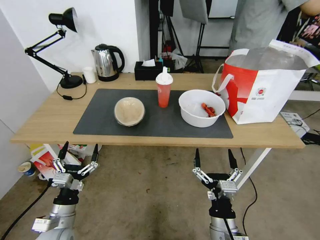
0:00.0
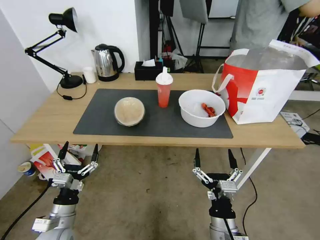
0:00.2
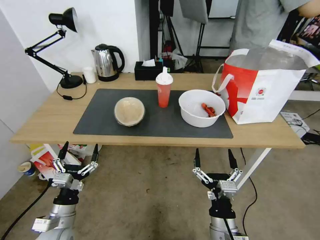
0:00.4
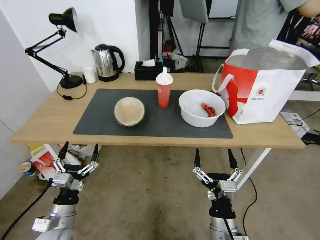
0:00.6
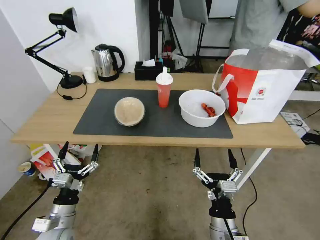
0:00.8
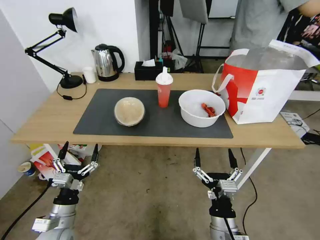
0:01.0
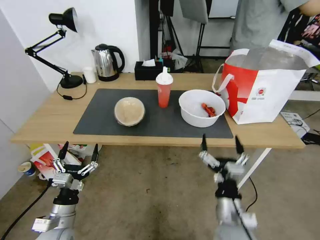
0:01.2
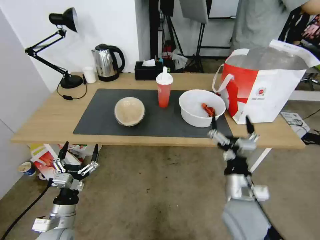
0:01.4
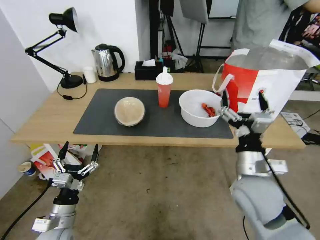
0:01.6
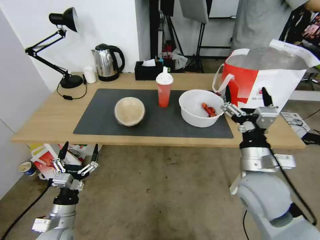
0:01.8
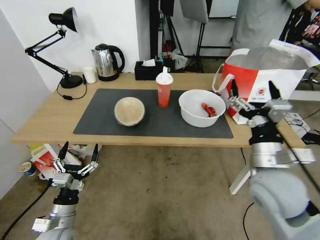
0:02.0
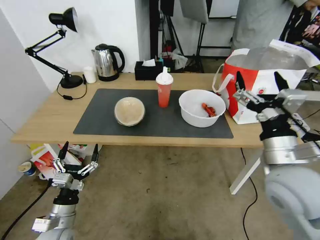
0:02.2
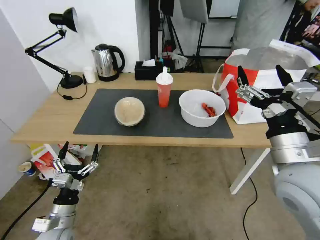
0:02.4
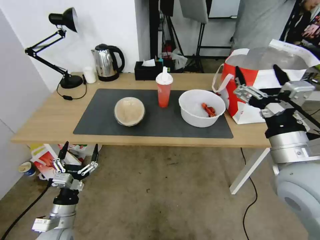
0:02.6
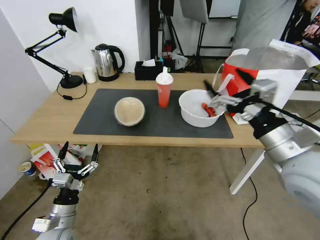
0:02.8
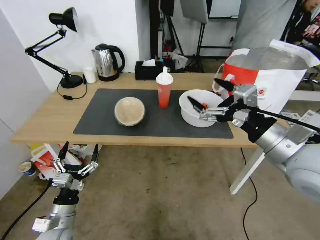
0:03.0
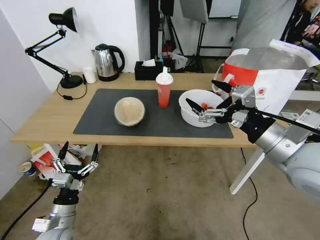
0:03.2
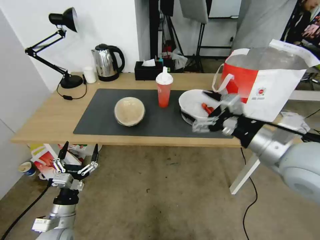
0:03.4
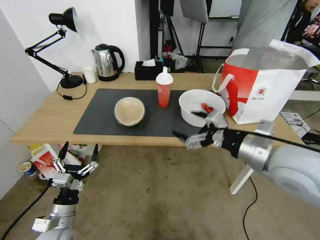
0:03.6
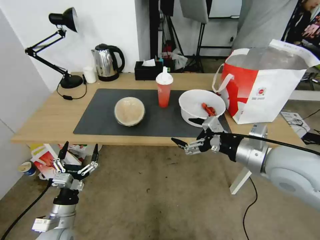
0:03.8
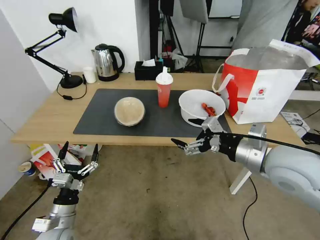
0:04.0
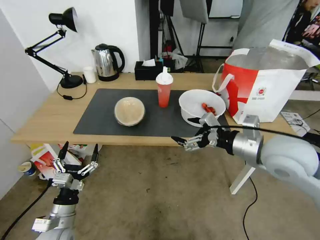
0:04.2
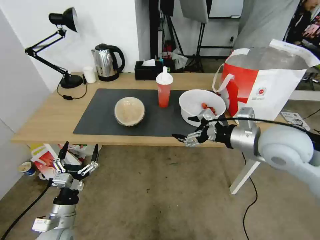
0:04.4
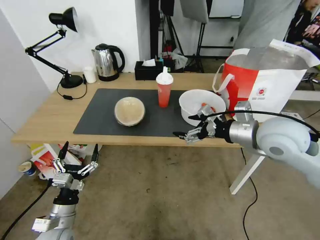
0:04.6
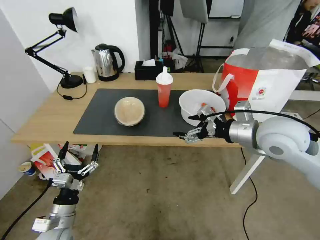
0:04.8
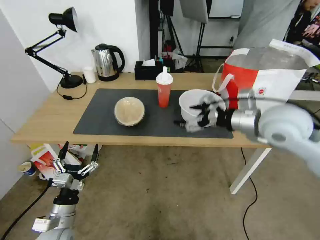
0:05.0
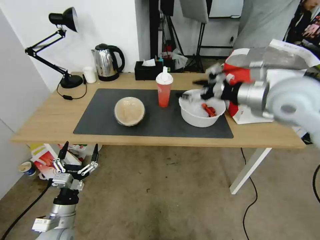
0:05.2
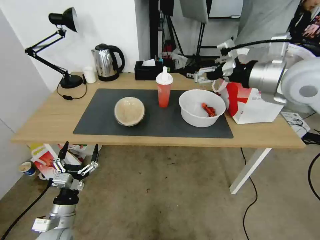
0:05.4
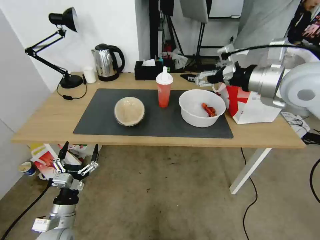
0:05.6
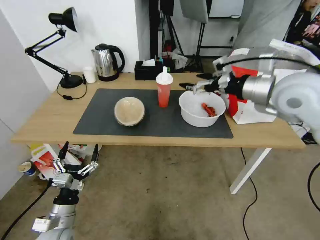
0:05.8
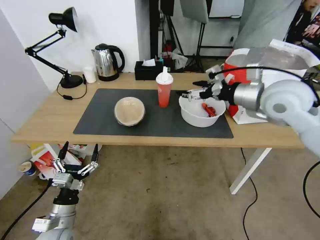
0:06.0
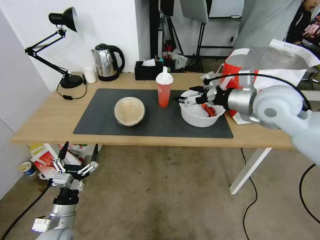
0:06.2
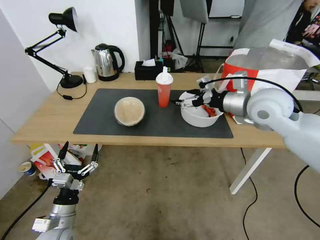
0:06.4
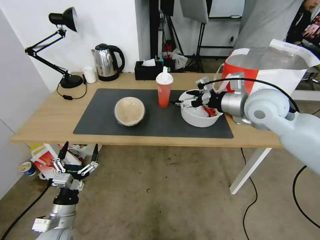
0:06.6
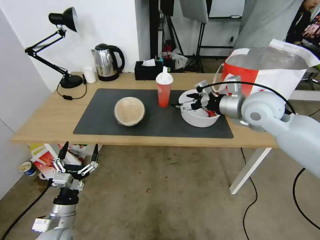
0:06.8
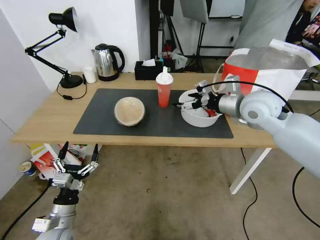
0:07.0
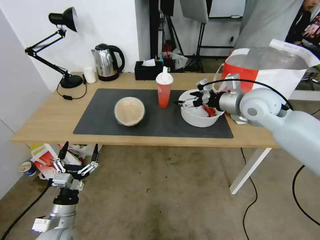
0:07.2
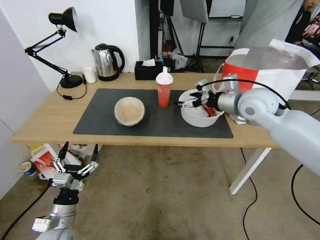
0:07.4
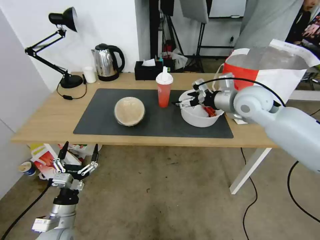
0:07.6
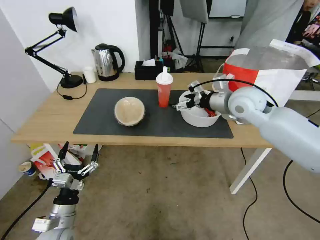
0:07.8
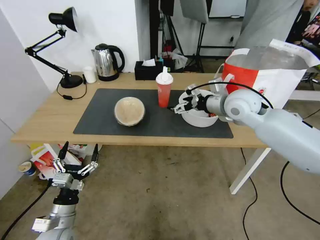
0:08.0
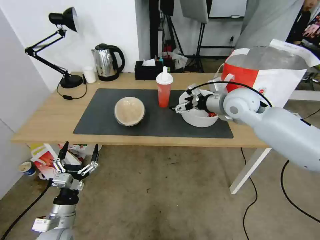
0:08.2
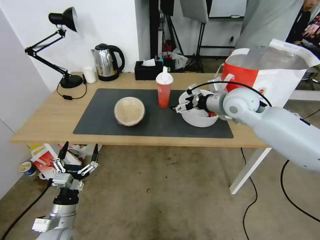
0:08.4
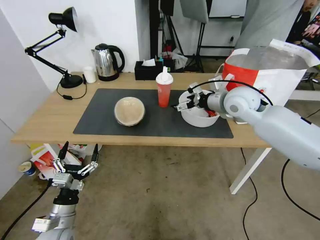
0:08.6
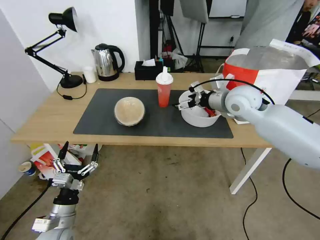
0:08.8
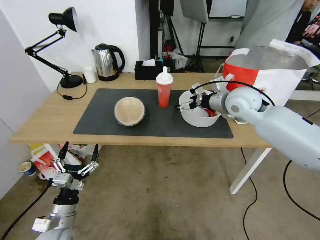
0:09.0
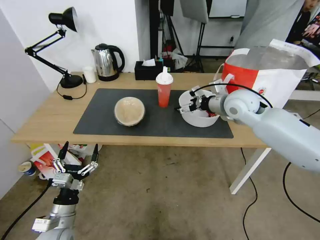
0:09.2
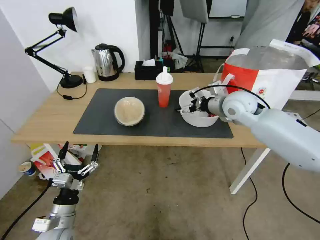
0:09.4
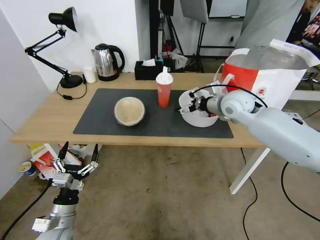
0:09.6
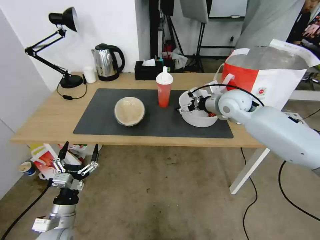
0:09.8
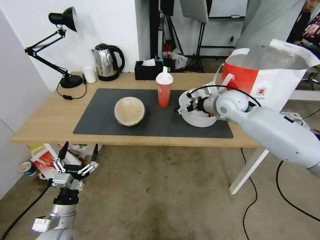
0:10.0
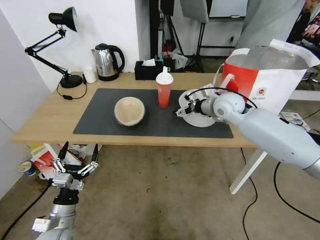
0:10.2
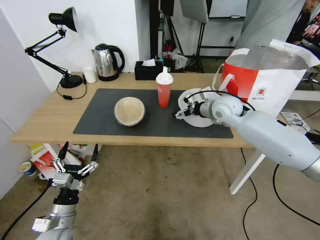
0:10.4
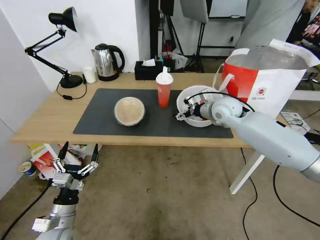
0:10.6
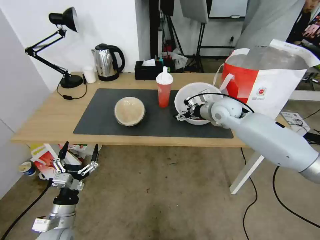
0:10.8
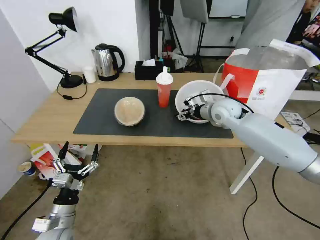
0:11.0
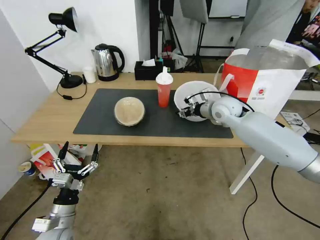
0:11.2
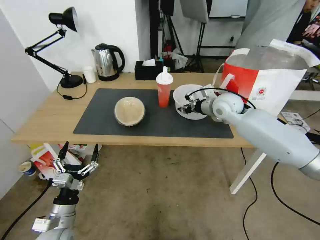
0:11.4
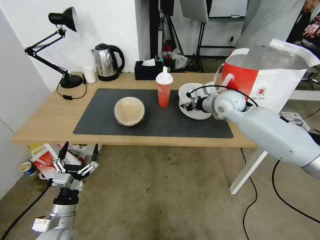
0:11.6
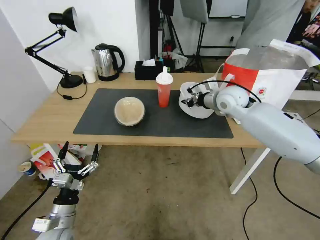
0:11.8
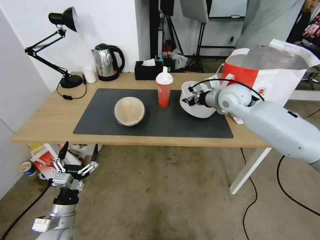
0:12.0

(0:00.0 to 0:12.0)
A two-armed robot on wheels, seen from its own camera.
Task of the whole recording: Pick up the trash from the table and place it into the takeout bag.
0:01.6 - 0:03.0: The right gripper heads upward and to the right, covering roughly 15 cm.
0:03.0 - 0:04.4: The right gripper goes about 5 cm forward.
0:04.4 - 0:06.0: The right gripper moves forward and upward, about 10 cm.
0:06.0 - 0:07.6: The right gripper shifts some 10 cm forward and downward.
0:07.6 - 0:09.0: The grippers stay close to where they were, moving slightly.
0:09.0 - 0:10.4: The right gripper heads downward, covering roughly 5 cm.
0:10.4 - 0:12.0: The right gripper closes up.

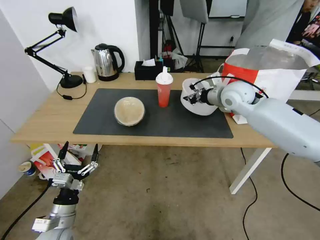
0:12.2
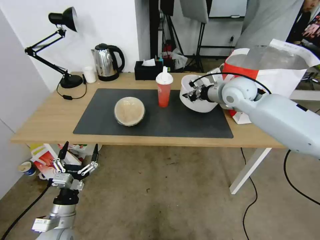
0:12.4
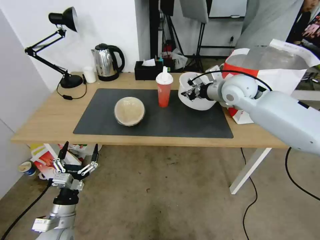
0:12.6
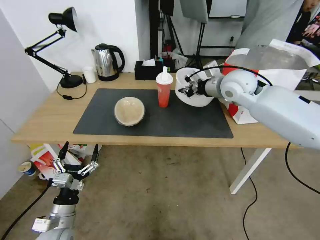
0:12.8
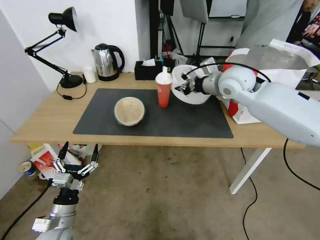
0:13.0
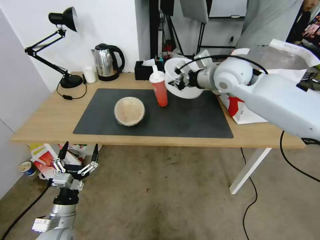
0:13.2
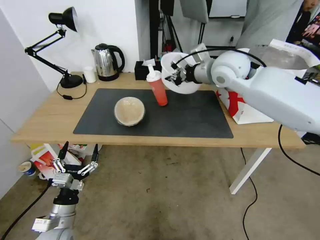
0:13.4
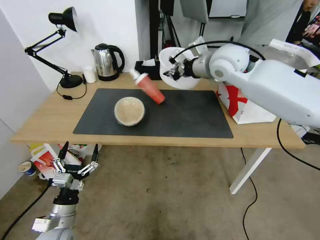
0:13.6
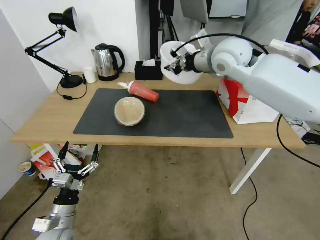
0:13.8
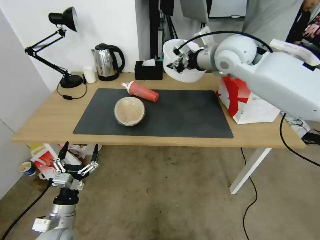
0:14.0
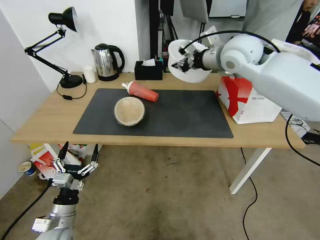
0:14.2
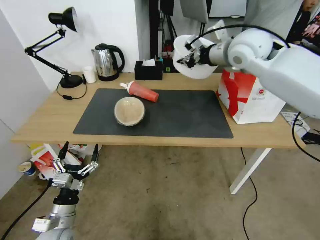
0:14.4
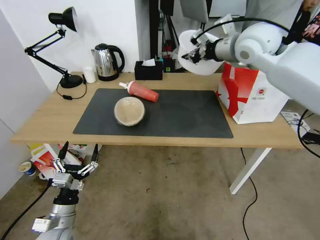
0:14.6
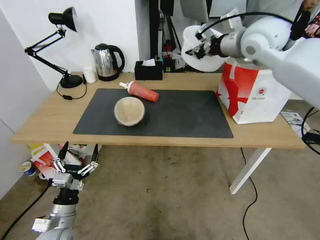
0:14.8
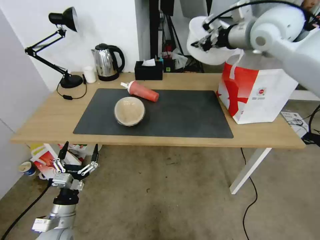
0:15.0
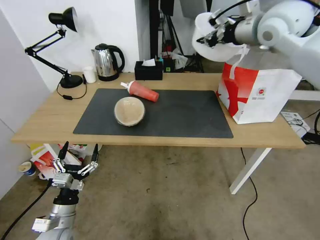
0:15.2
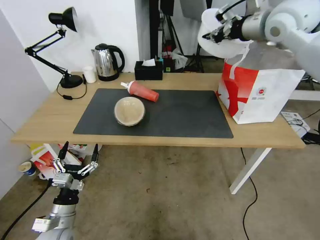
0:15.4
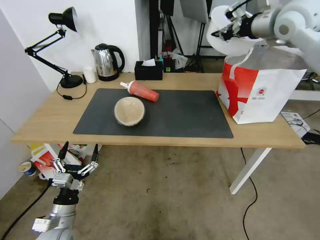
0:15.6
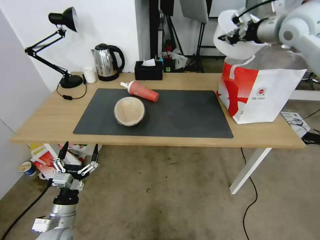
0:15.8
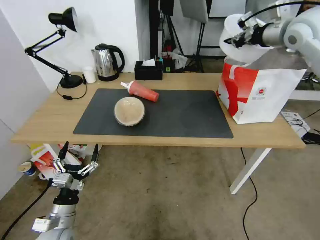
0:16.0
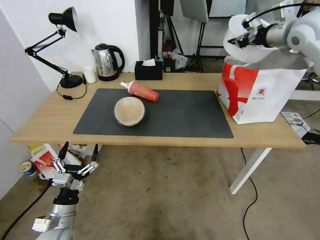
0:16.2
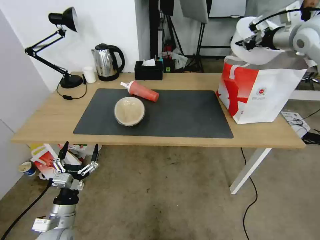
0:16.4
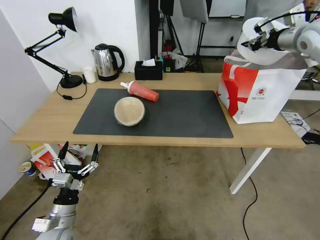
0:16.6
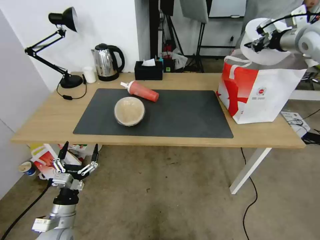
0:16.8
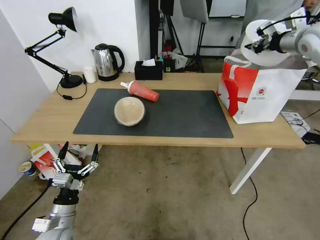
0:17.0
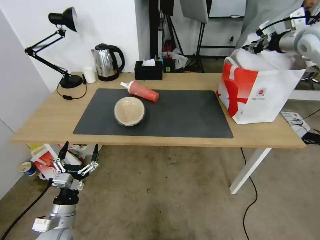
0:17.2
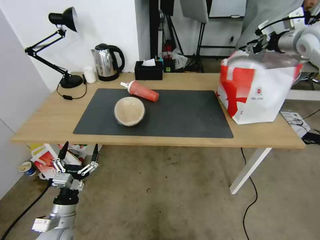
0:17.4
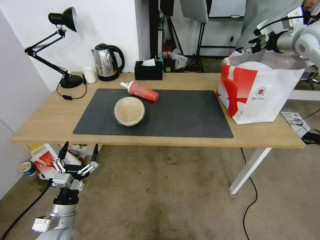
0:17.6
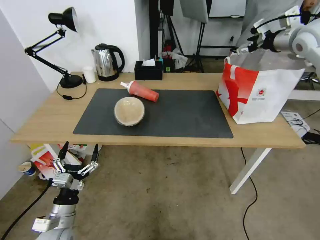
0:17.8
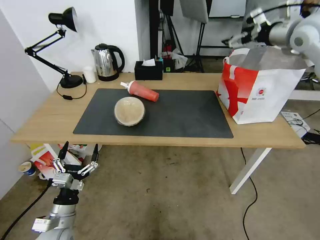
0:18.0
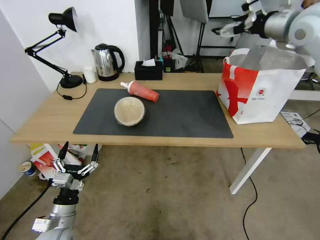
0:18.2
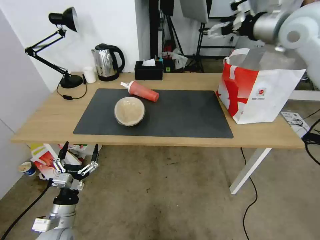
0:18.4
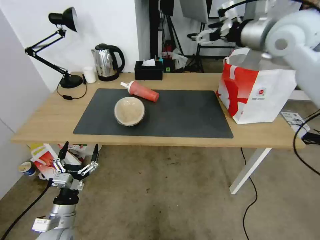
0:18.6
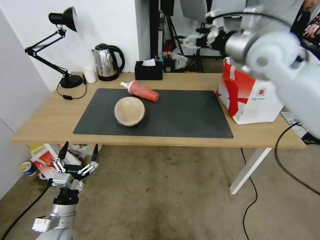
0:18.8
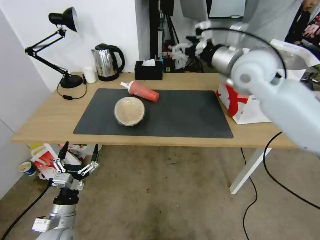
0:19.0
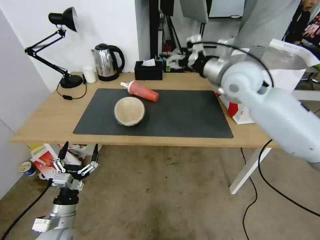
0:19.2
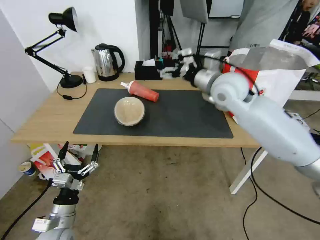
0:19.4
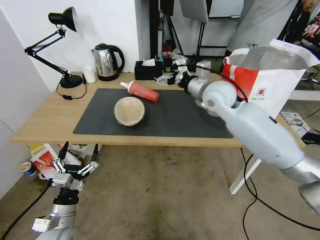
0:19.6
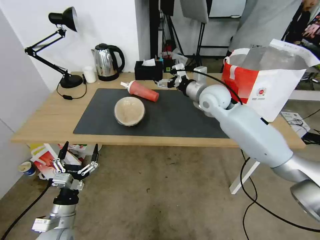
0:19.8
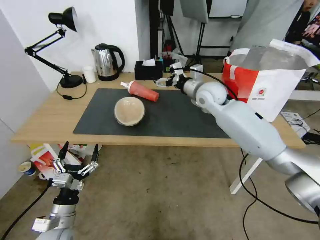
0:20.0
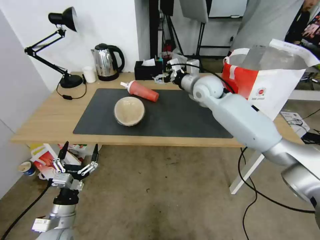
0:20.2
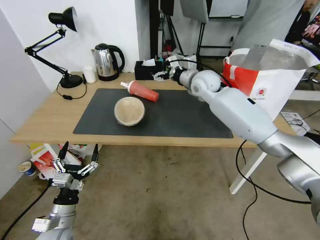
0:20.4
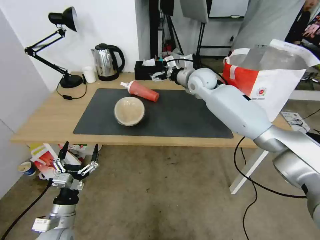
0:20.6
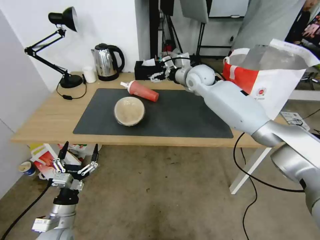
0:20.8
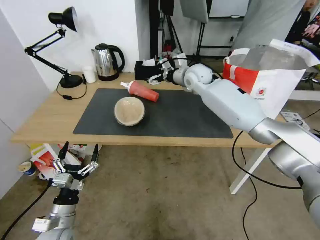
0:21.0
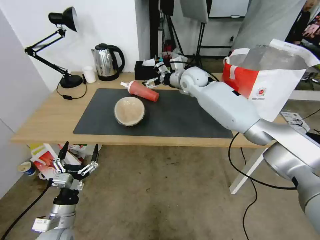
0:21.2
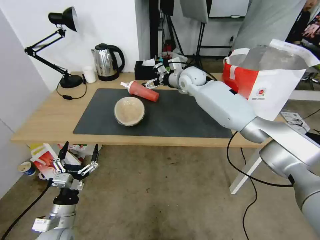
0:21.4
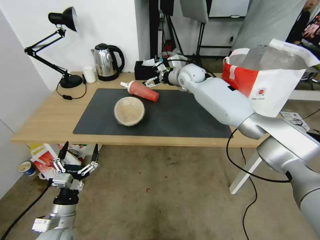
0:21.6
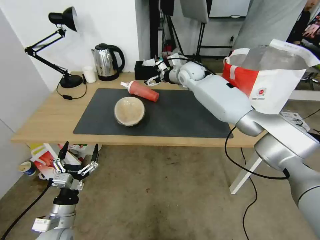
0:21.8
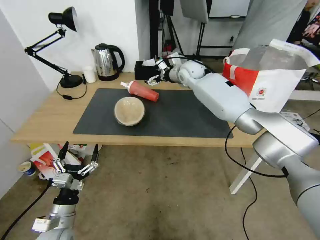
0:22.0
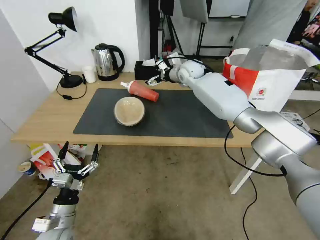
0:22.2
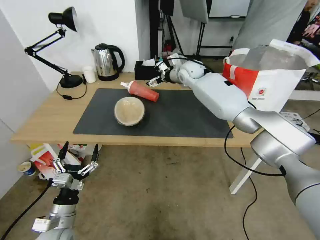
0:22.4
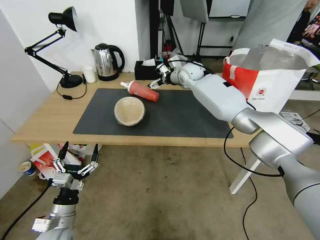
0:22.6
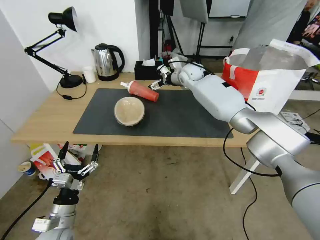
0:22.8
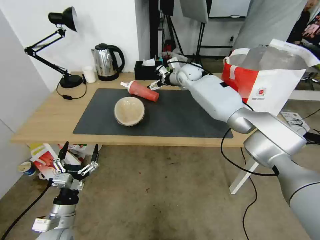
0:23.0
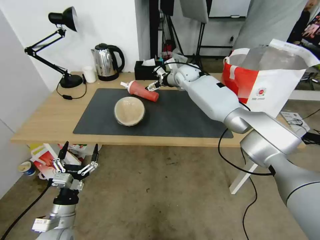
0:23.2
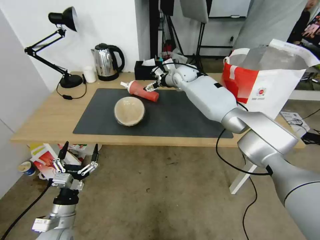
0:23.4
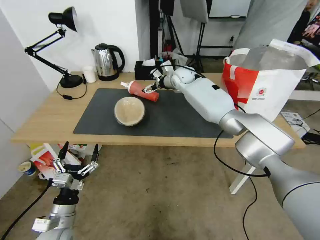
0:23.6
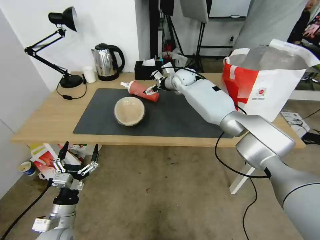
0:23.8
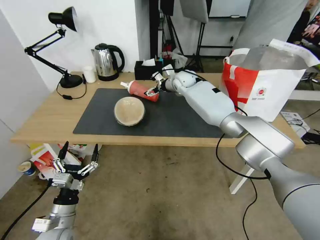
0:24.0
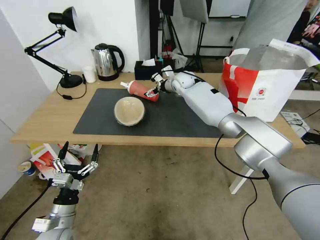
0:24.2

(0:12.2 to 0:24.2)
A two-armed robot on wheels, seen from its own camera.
Task of the whole recording: Pick up the trash from the table and place it into the takeout bag.
0:12.2 - 0:13.8: The right gripper moves upward and to the left, approximately 15 cm.
0:13.8 - 0:15.2: The right gripper shifts about 10 cm to the right and upward.
0:15.2 - 0:16.6: The right gripper goes roughly 15 cm to the right.
0:16.6 - 0:18.2: The right gripper travels to the left by approximately 5 cm, and opens up.
0:18.2 - 0:19.8: The right gripper goes some 30 cm downward and to the left.
0:19.8 - 0:21.2: The right gripper shifts approximately 10 cm forward and to the left.
0:21.2 - 0:22.6: The right gripper is displaced forward by roughly 5 cm.
0:22.6 - 0:24.2: The right gripper moves approximately 5 cm.
